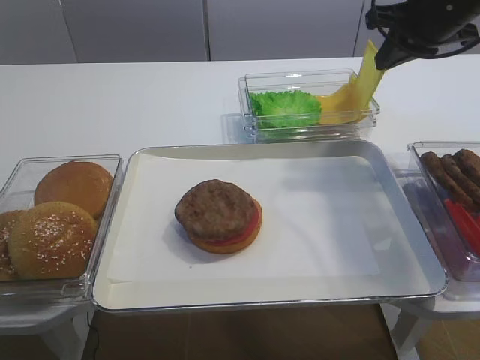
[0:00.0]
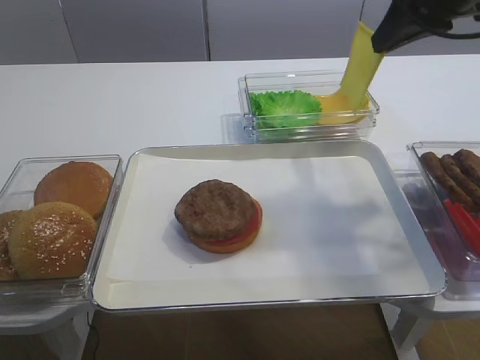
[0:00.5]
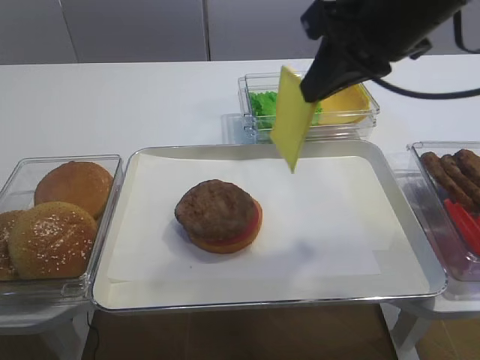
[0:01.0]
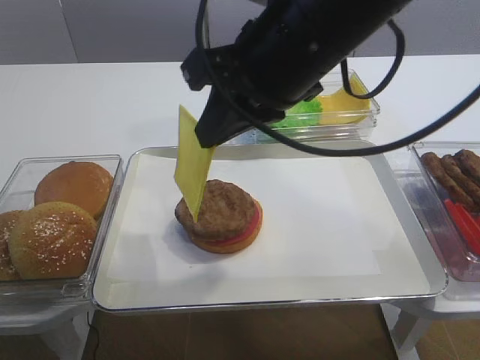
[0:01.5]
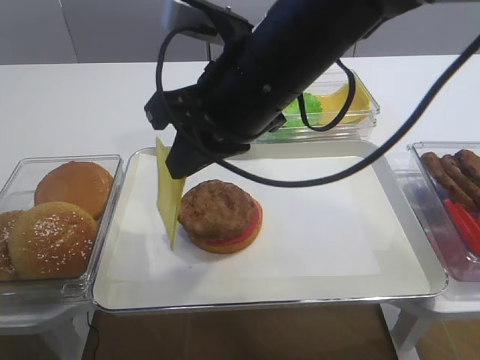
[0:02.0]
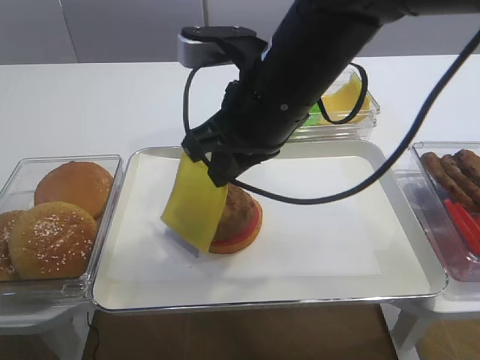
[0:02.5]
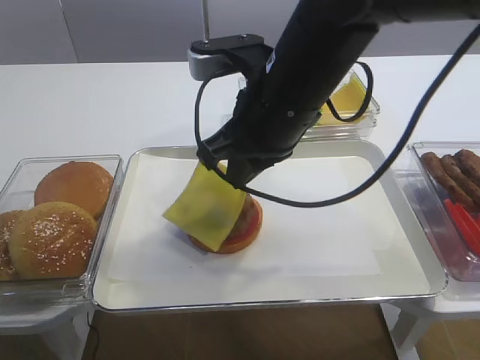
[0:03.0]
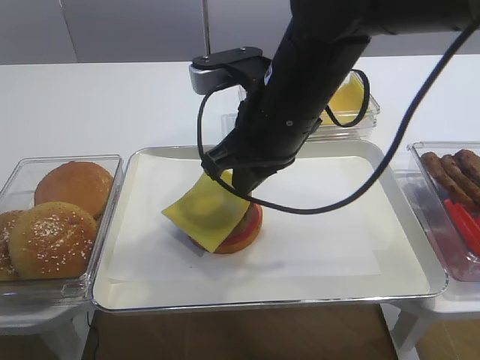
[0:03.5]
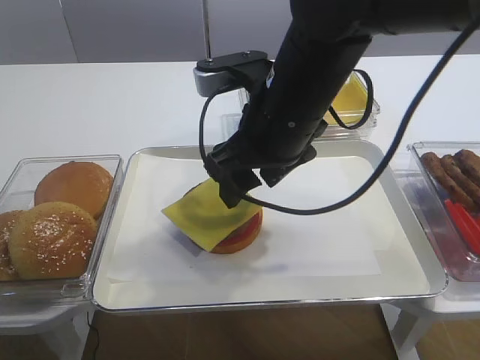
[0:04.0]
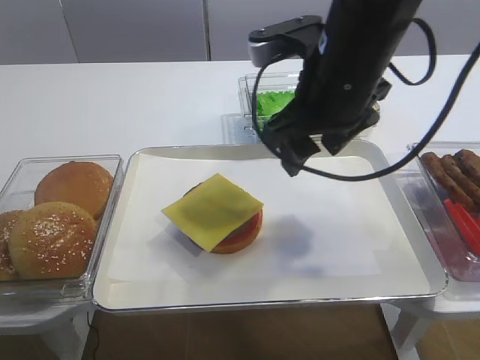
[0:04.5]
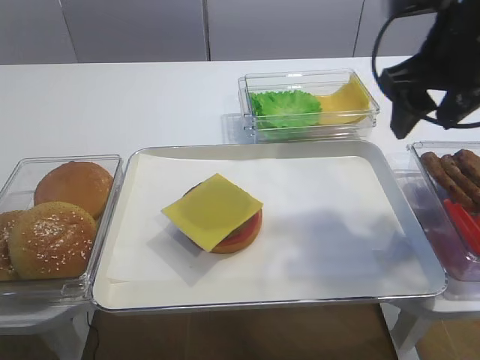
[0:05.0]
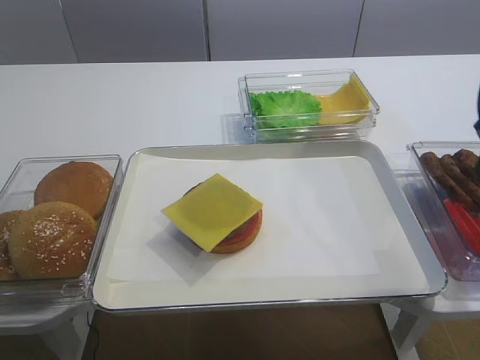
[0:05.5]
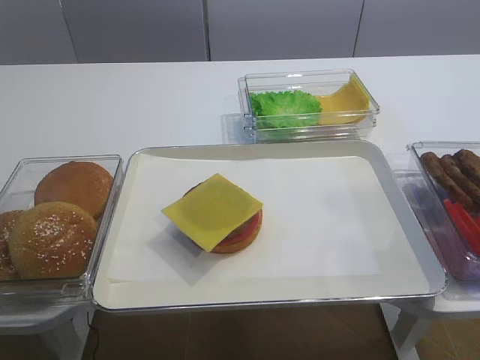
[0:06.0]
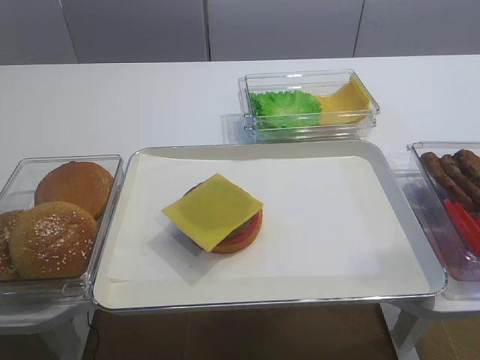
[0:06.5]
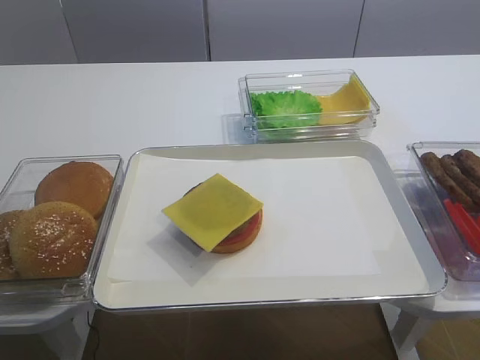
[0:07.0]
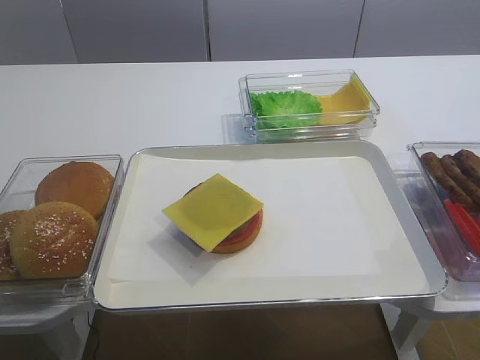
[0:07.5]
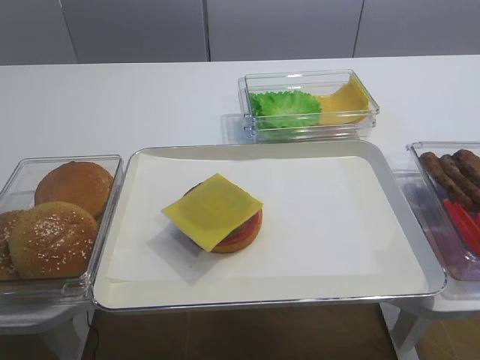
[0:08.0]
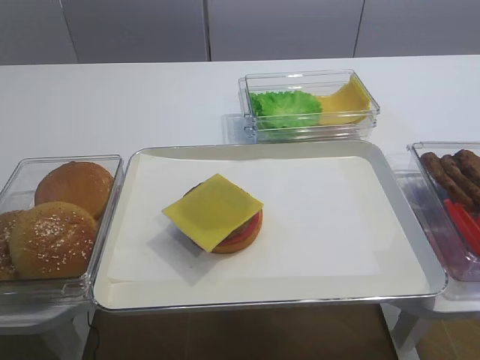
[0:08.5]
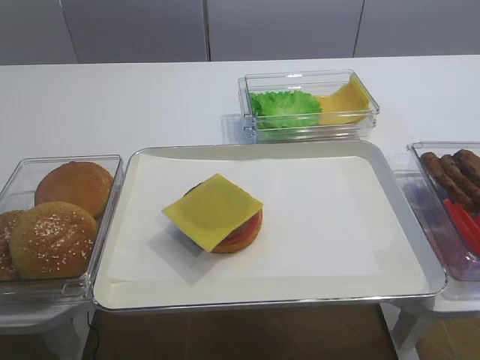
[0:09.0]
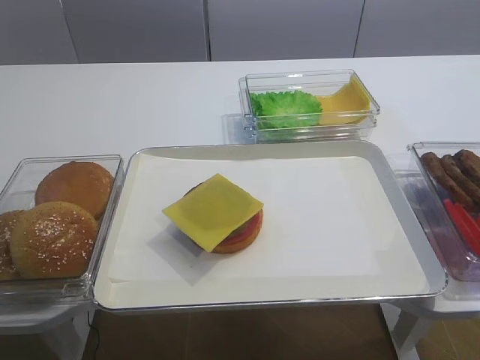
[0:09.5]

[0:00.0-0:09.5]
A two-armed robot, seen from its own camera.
Step, 0:00.5 to 0:04.0: Place the cheese slice on the cutlet with the right gripper.
0:00.0 to 0:02.0: The right gripper heads to the left and backward, covering about 25 cm.
0:02.0 to 0:04.0: The right gripper ends up roughly 5 cm from where it was, and opens.
0:04.0 to 0:05.5: The right gripper goes roughly 20 cm to the right.
0:05.5 to 0:07.5: The right gripper is displaced backward by about 20 cm.

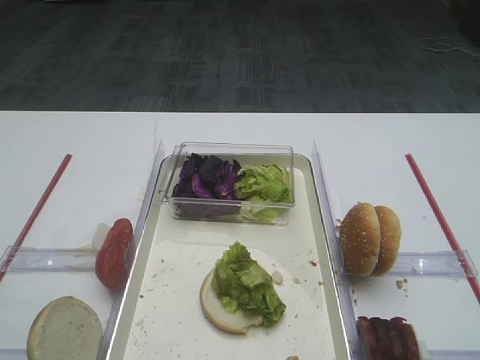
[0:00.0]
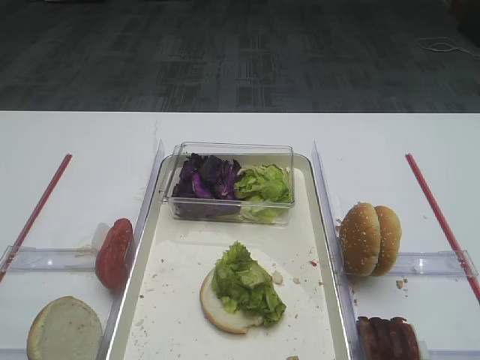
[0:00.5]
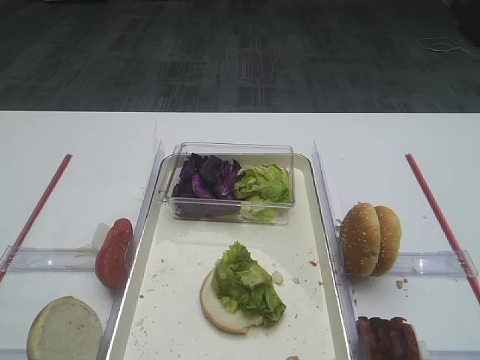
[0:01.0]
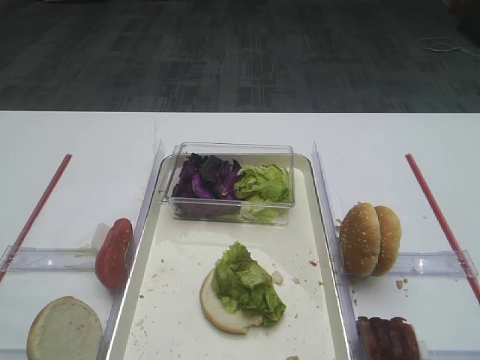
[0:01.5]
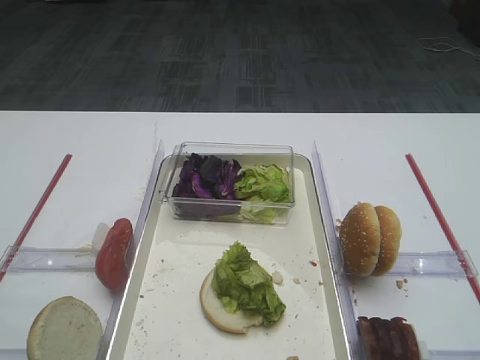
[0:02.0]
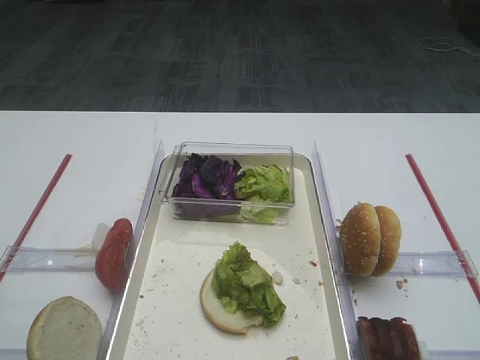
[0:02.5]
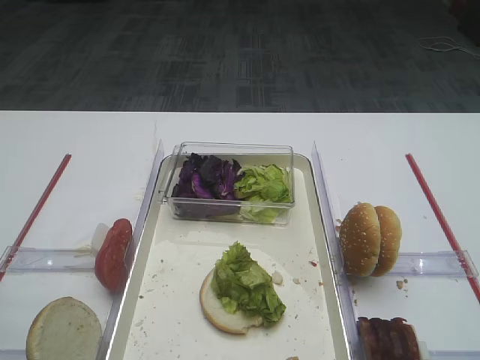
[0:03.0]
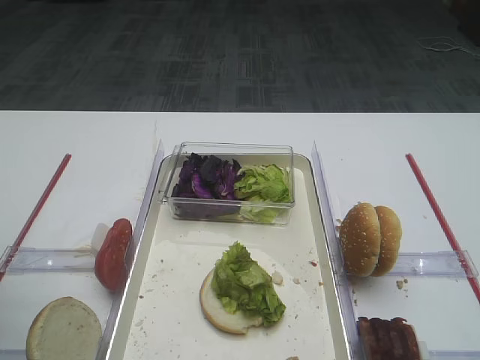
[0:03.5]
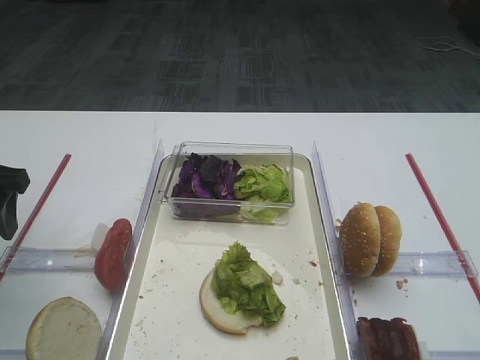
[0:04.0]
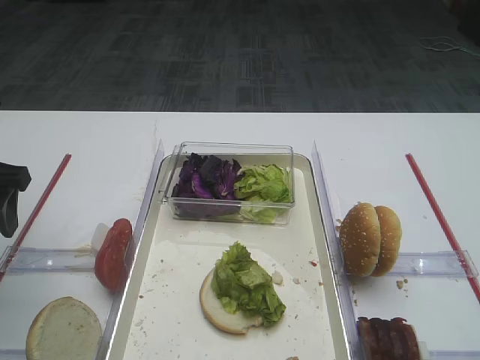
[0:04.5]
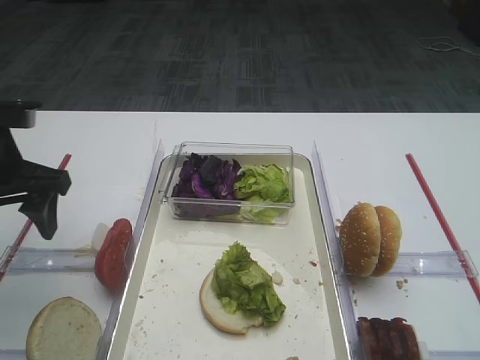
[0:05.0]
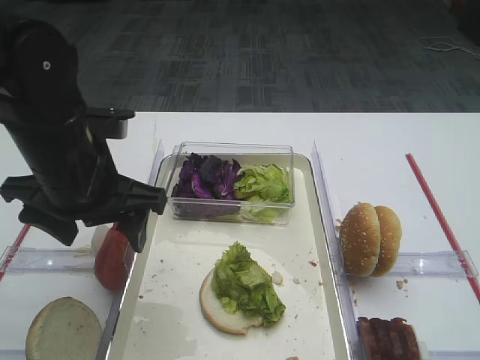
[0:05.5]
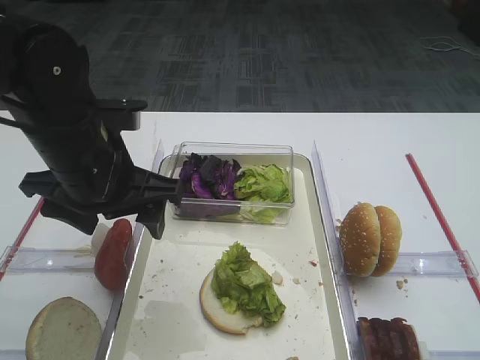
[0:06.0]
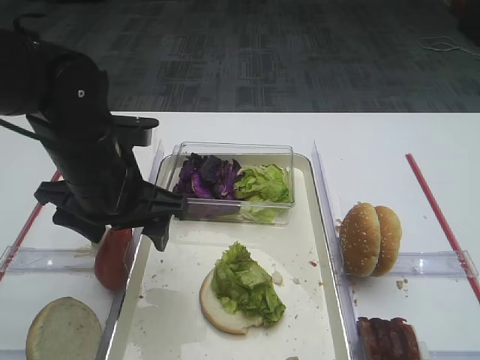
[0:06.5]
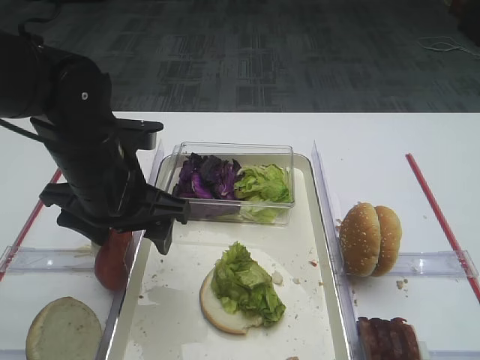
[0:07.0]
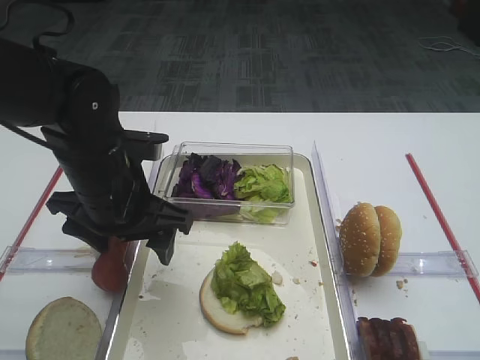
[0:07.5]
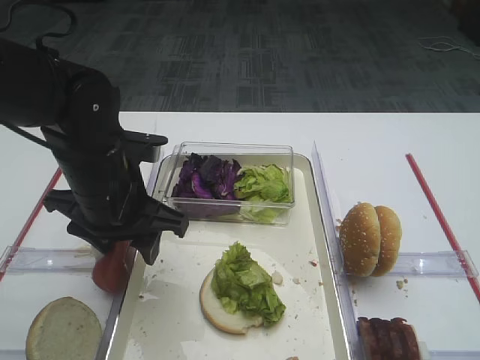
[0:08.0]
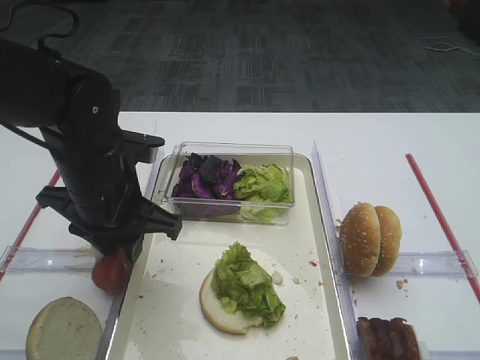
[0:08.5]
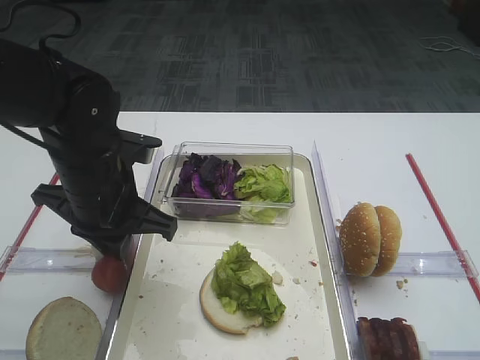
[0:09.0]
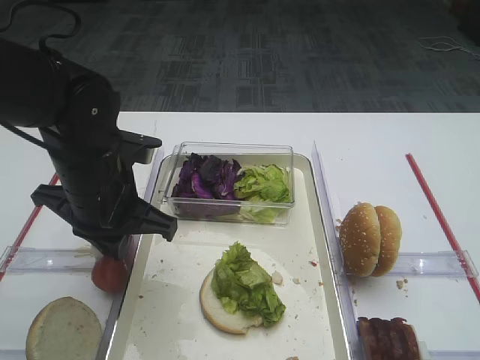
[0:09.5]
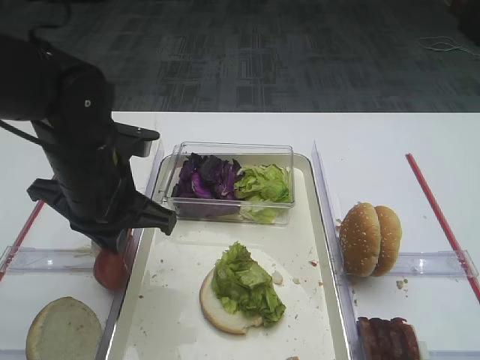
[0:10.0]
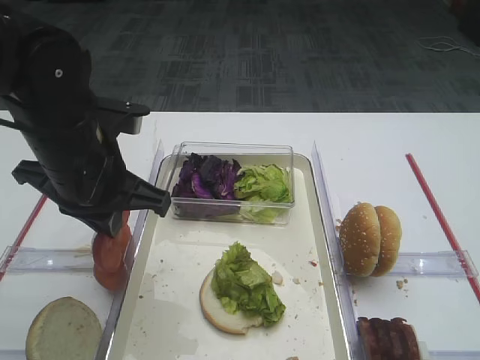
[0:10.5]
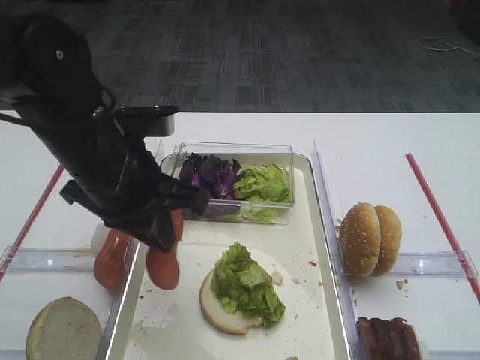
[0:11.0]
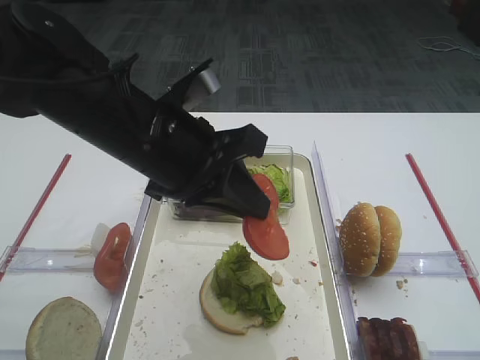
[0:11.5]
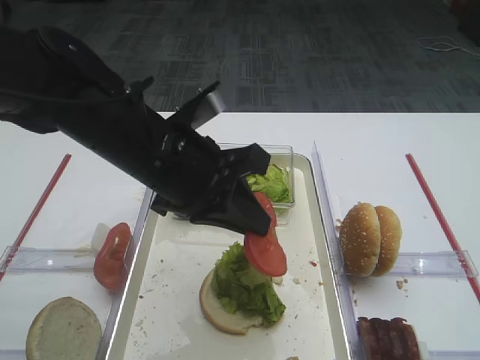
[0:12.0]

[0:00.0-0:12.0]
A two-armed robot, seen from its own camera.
Step, 0:00.0 to 0:10.0: Pick up the tomato slice with the left gripper.
0:02.0 to 0:04.0: The left gripper travels forward by approximately 25 cm.
0:04.0 to 0:06.0: The left gripper moves to the right, some 15 cm.
0:06.0 to 0:08.0: The grippers stay close to where they were, moving slightly.
0:08.0 to 0:10.0: The left gripper closes.
0:10.0 to 0:12.0: The left gripper moves to the right, approximately 5 cm.

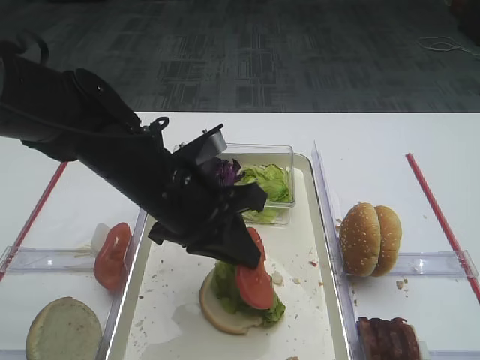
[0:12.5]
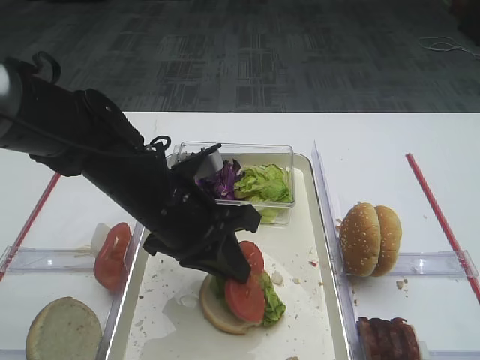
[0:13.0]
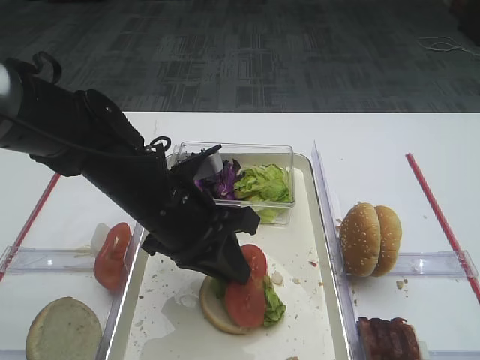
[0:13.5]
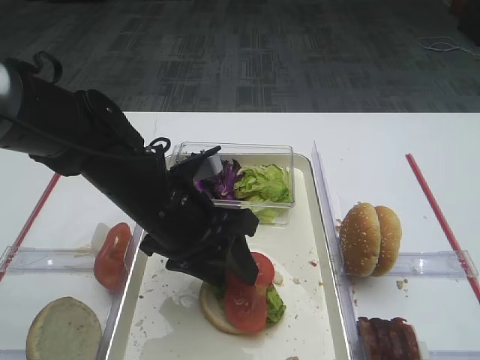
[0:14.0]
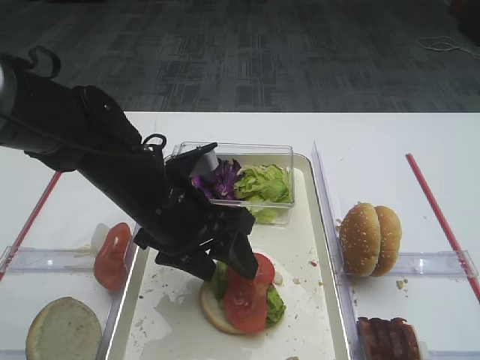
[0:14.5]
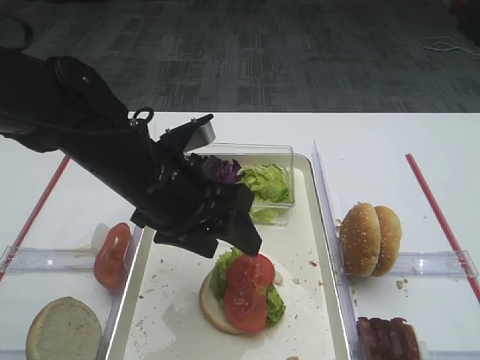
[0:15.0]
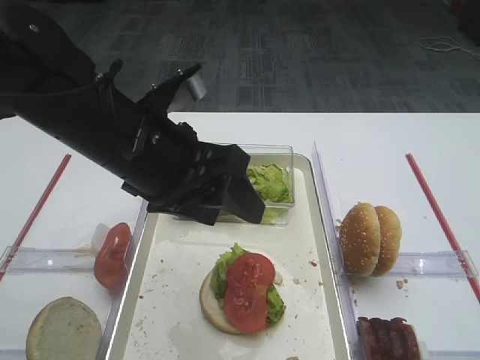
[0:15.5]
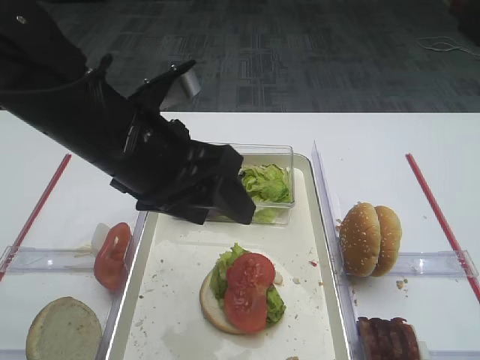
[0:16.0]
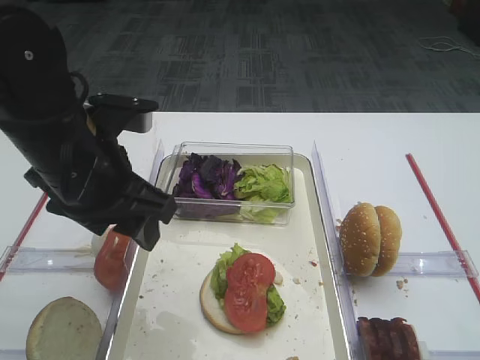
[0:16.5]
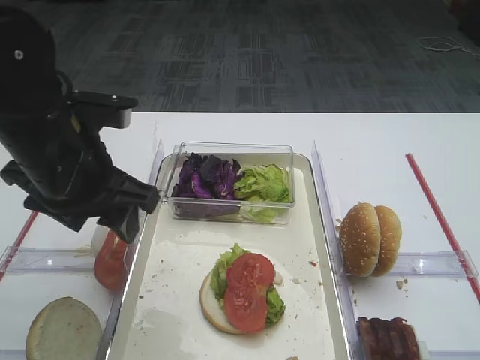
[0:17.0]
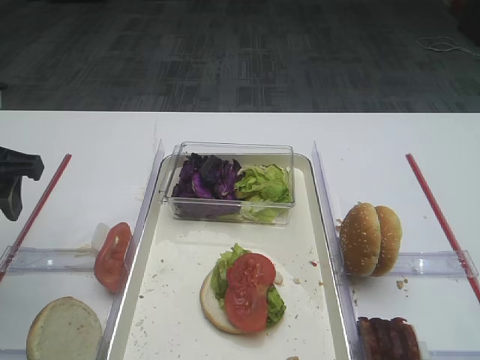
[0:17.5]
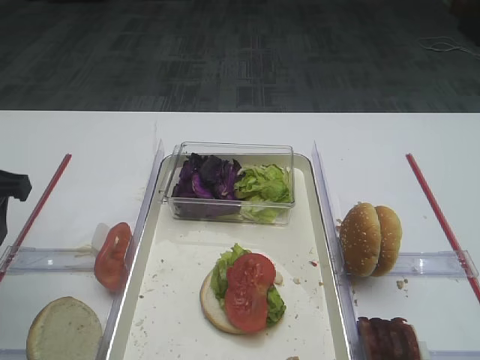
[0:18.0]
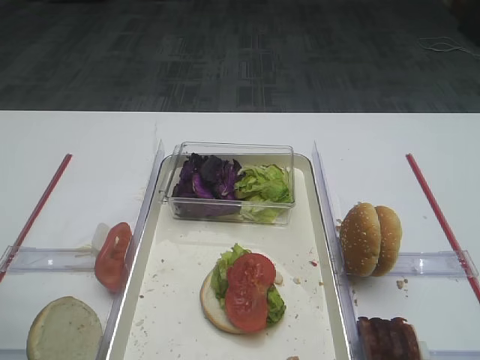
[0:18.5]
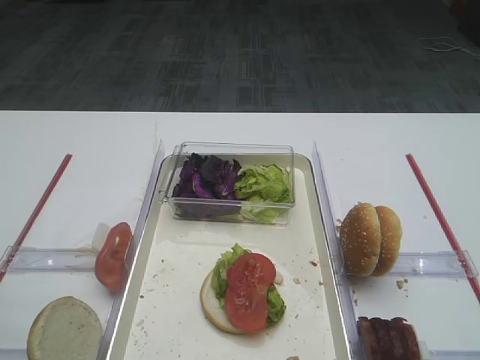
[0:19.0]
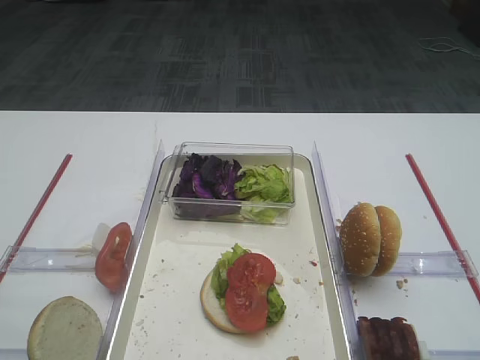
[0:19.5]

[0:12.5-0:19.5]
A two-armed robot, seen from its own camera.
Step, 0:12.5 to 0:14.5: Place the tomato slice on the lettuce leaf with the left gripper.
0:12.5 to 0:14.5: The left gripper opens its fingers.
0:14.5 to 0:16.0: The left gripper moves upward, about 10 cm.
0:16.0 to 0:17.5: The left gripper is displaced to the left by approximately 20 cm.
0:17.5 to 0:19.5: The left gripper moves backward, approximately 20 cm.
